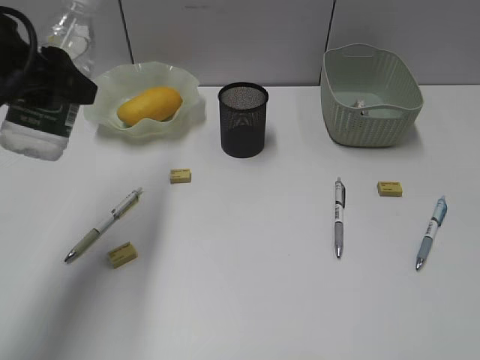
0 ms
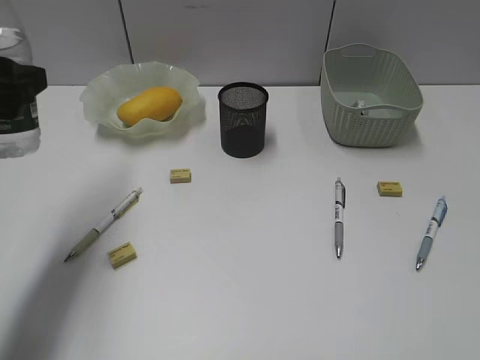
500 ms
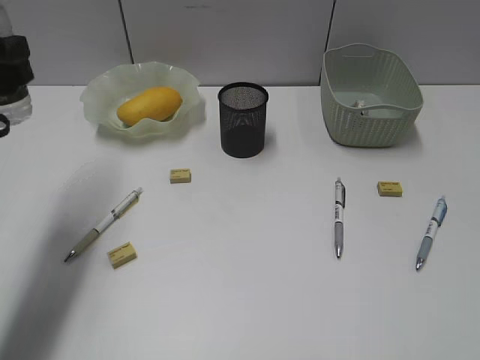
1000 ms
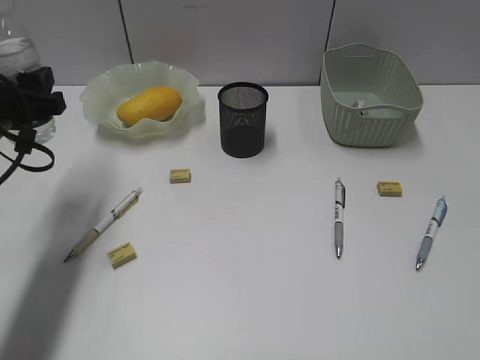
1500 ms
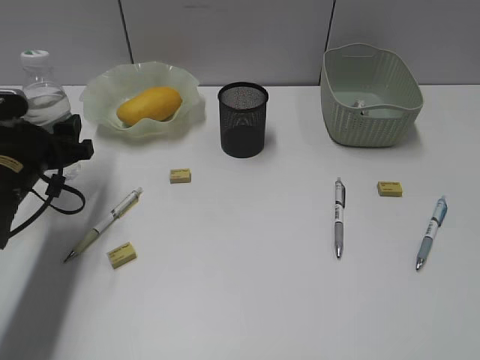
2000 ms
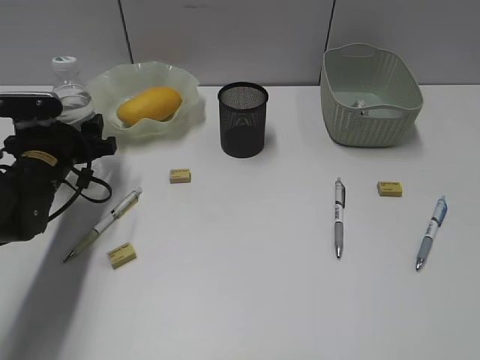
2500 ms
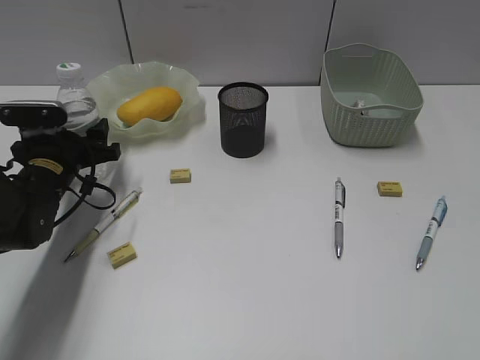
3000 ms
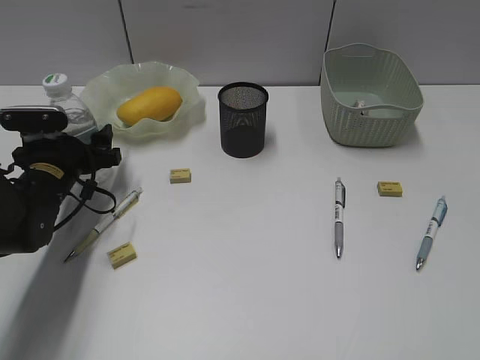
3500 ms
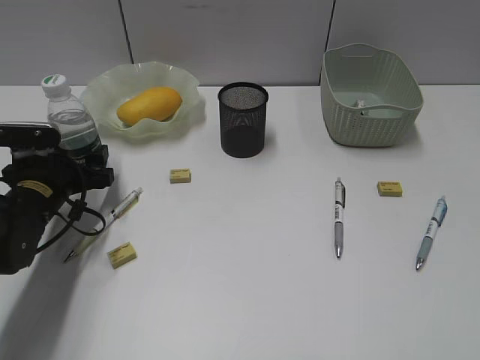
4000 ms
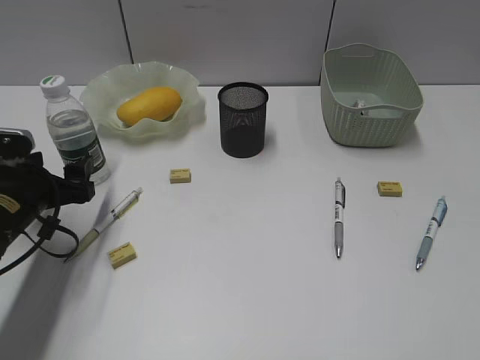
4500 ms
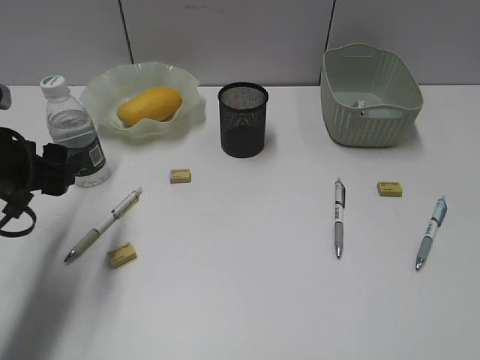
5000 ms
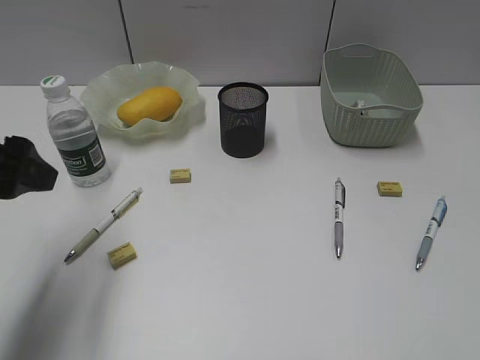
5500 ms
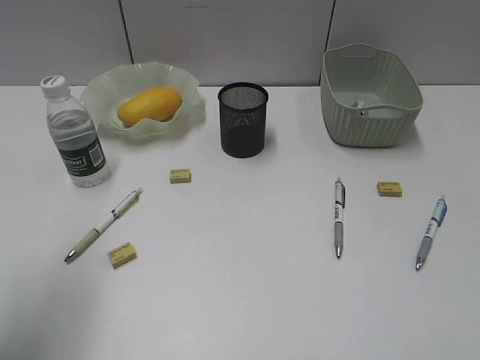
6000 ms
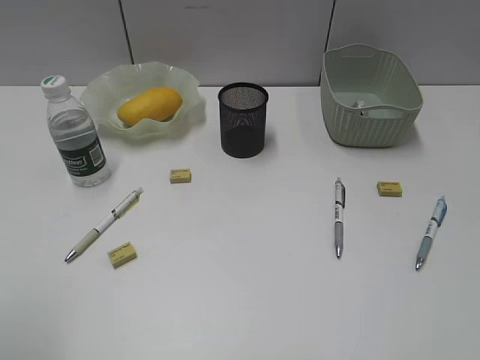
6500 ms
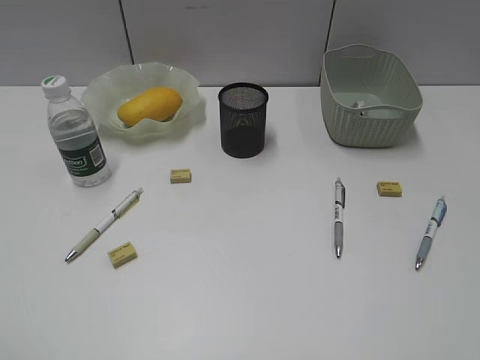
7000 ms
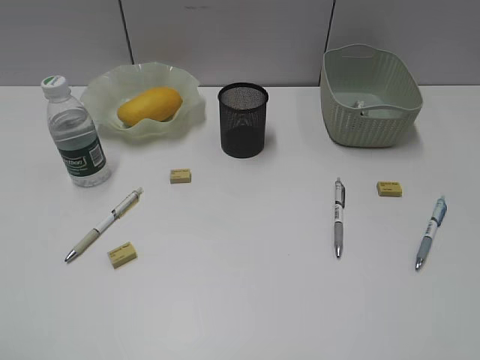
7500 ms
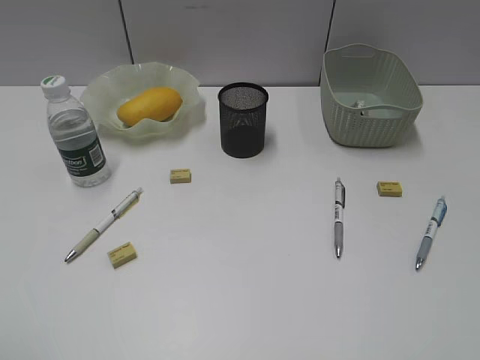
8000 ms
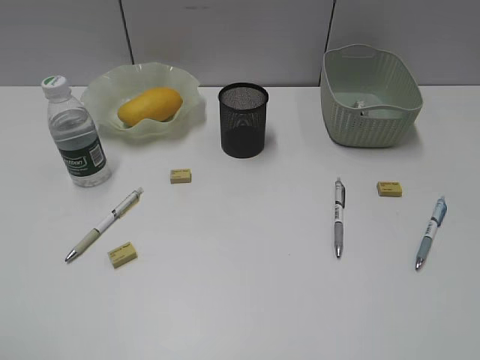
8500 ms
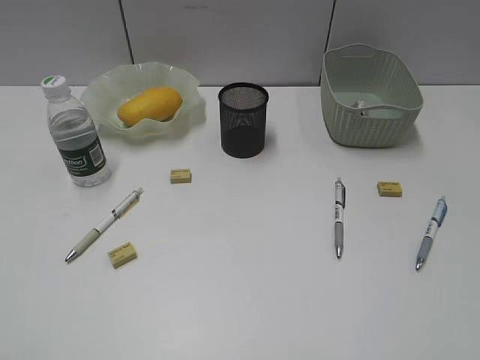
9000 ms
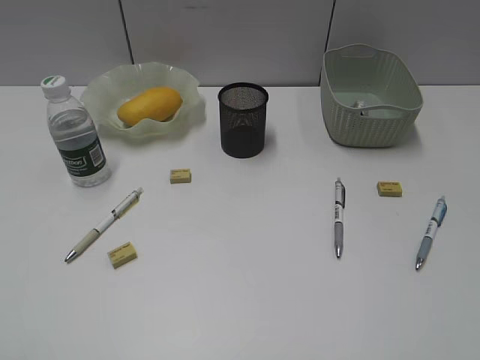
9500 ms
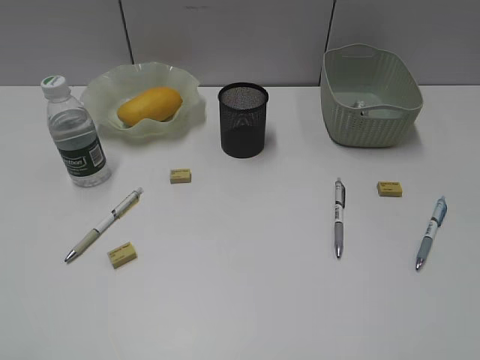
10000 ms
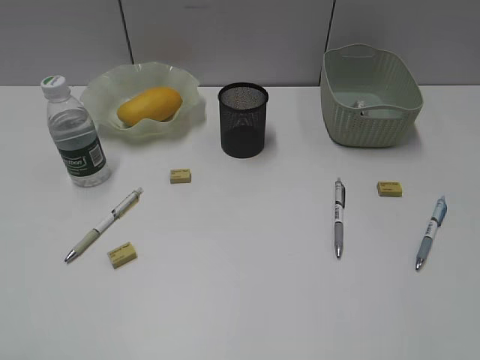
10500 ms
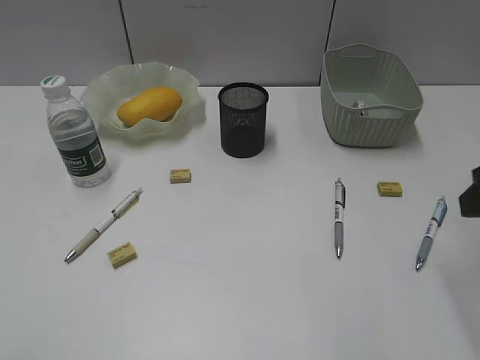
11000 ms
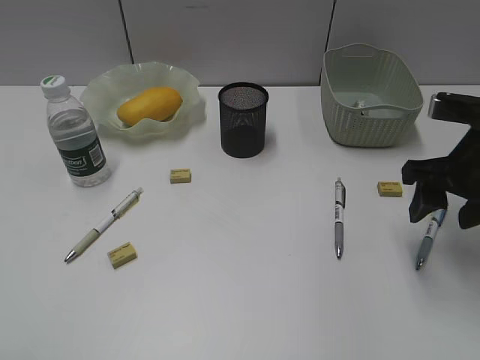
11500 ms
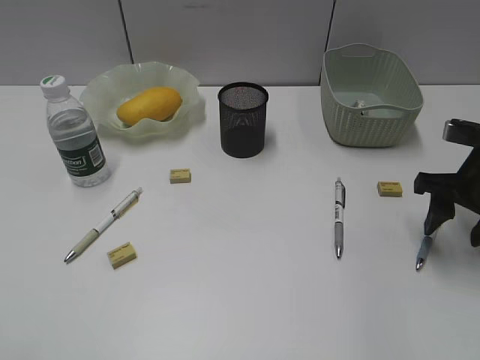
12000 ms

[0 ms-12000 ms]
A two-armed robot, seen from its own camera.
Step, 0 ms to 4000 ms: Stand the bottle with left gripper.
0 ms to 2000 ms: The left gripper goes about 20 cm downward.
2000 ms to 4000 ms: The left gripper travels downward by about 5 cm.
4000 ms to 6000 ms: The left gripper moves upward and backward, about 30 cm.
6000 ms to 8000 ms: The left gripper travels backward by approximately 15 cm.
10000 ms to 12000 ms: The right gripper moves forward and downward, about 30 cm.

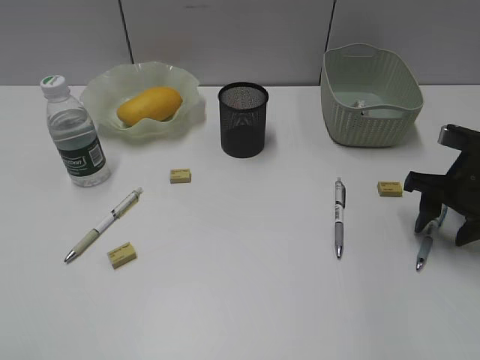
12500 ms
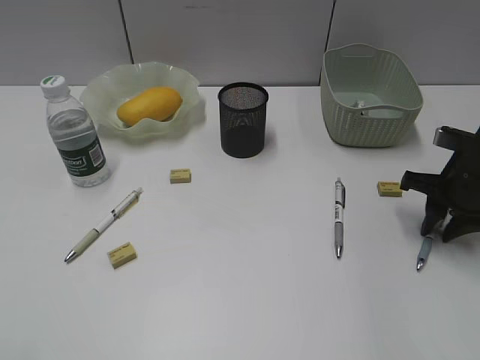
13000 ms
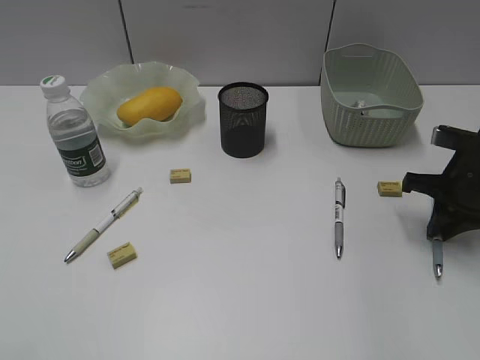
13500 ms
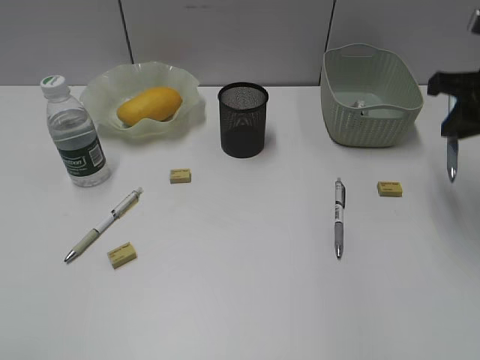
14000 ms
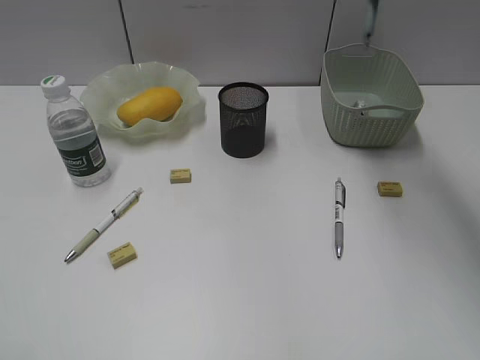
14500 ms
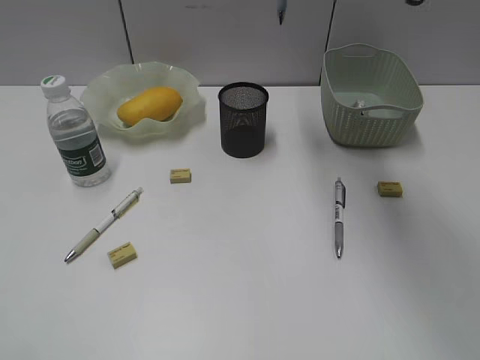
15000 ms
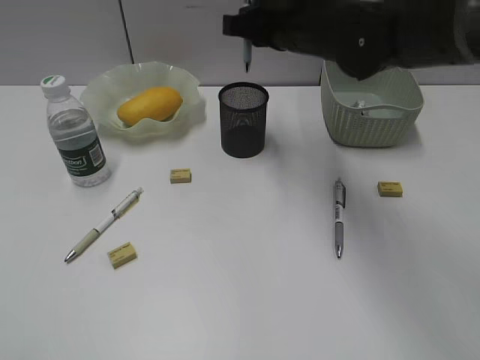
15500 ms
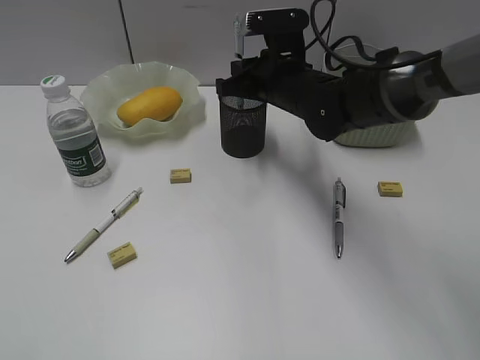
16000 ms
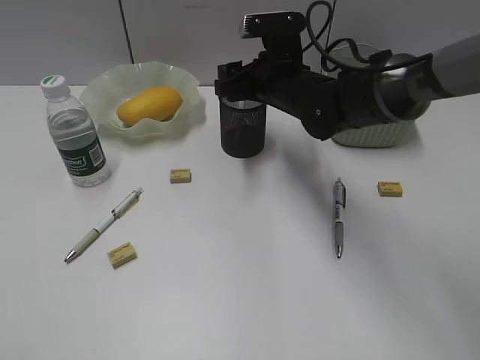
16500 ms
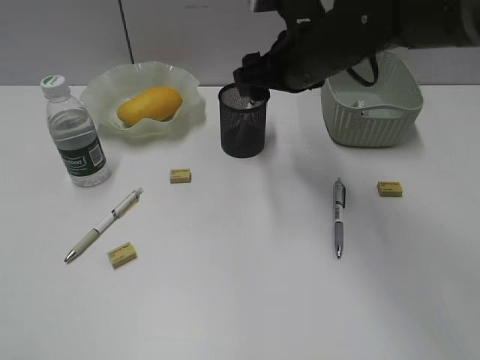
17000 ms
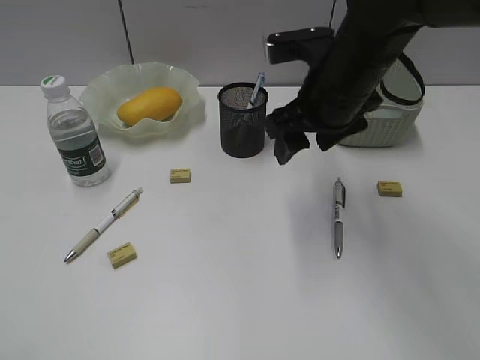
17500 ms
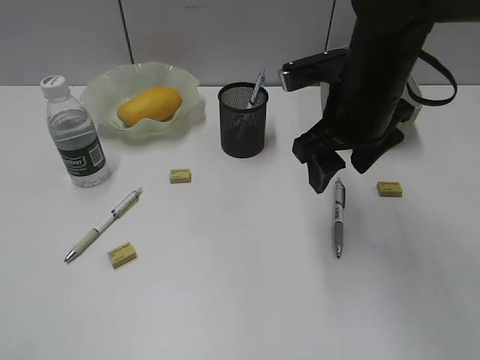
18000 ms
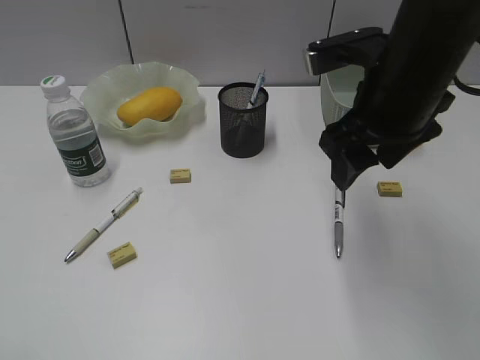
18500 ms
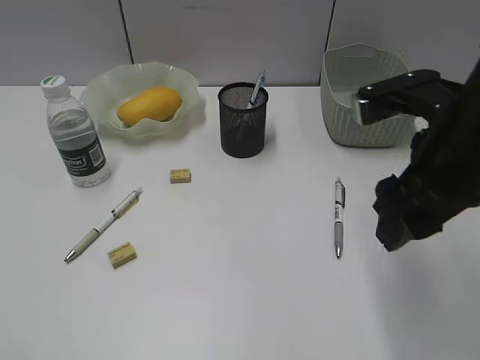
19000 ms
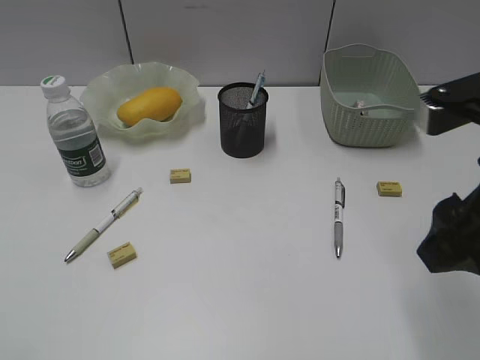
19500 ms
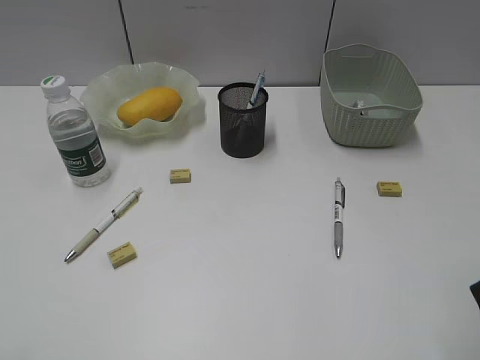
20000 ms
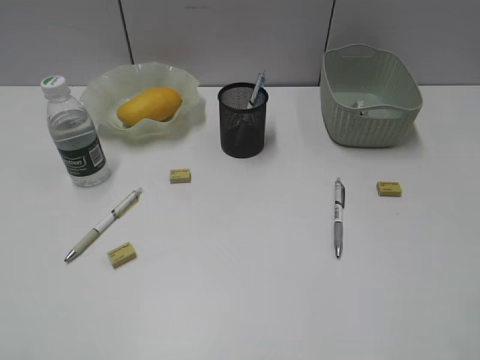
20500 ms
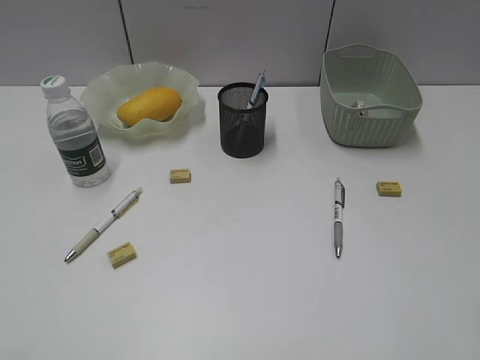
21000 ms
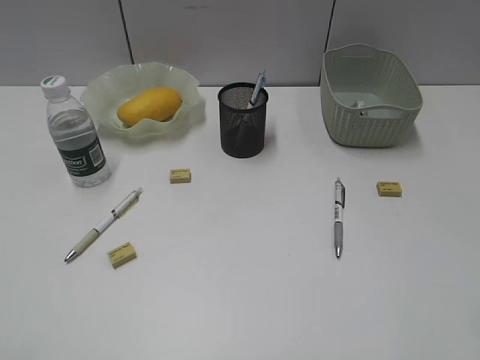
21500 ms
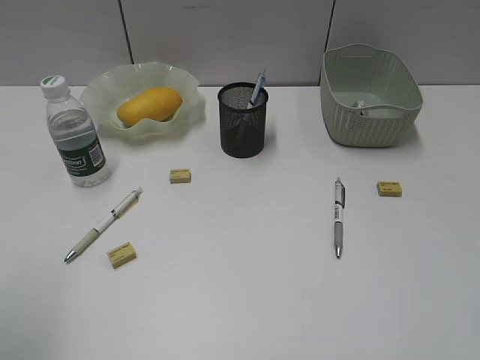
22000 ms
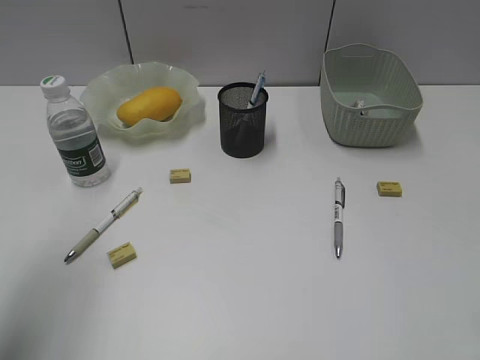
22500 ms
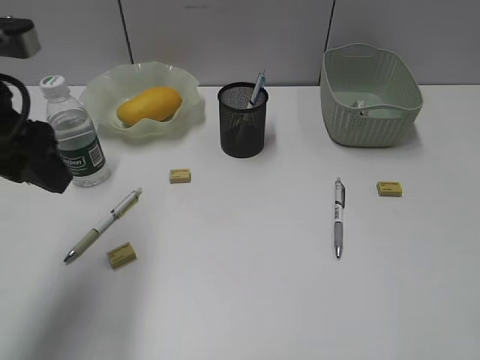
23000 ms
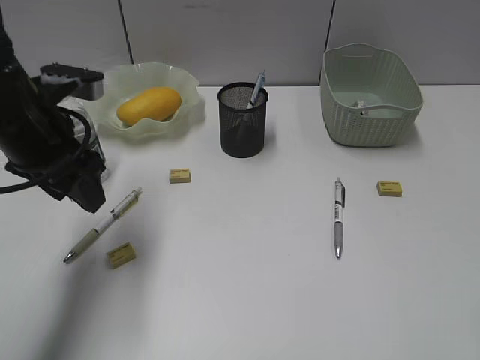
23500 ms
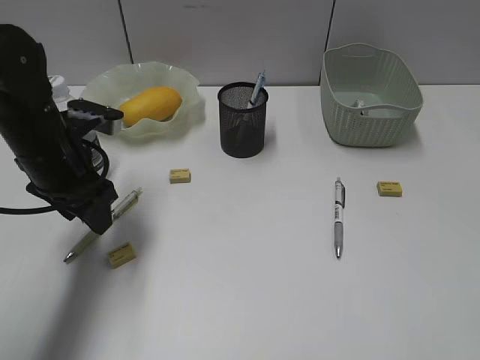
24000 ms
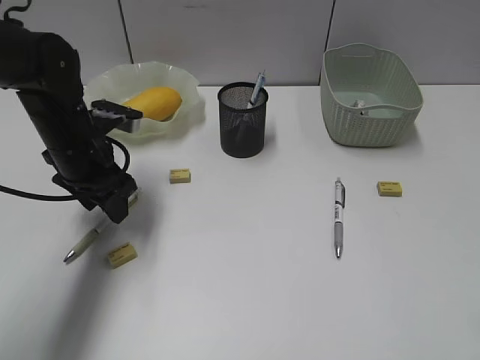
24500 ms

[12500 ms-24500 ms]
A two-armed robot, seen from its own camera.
Step, 13500 ms to 16500 ms: Place the blue pen in pen holder with right gripper.
12500 ms to 14500 ms: The right gripper goes roughly 25 cm upward and to the left, and closes its fingers.
14500 ms to 16500 ms: The right gripper shifts roughly 25 cm downward and to the left, and opens up.
16500 ms to 18500 ms: The right gripper shifts about 20 cm backward, upward and to the right.
18500 ms to 20500 ms: The right gripper heads backward and to the right, covering about 25 cm.
20500 ms to 22500 ms: The left gripper goes some 20 cm forward.
22500 ms to 24500 ms: The left gripper moves forward, downward and to the right, approximately 25 cm.

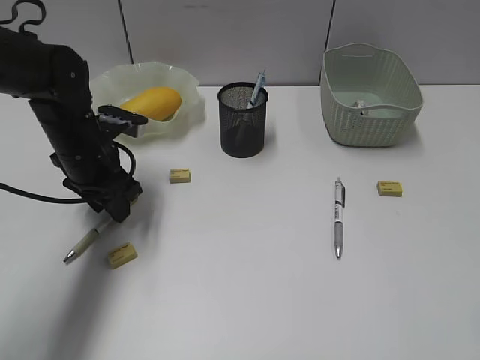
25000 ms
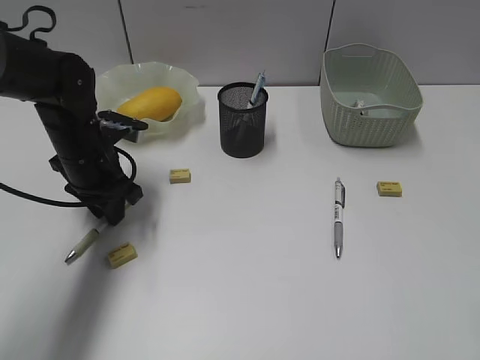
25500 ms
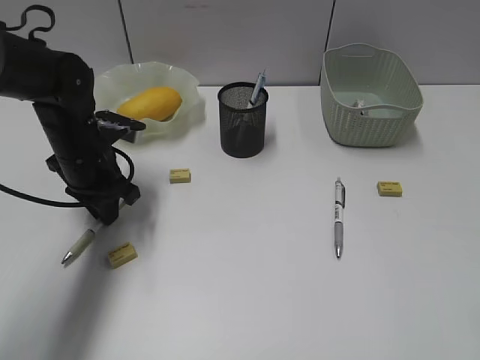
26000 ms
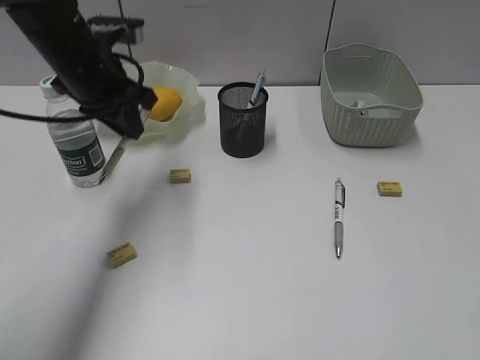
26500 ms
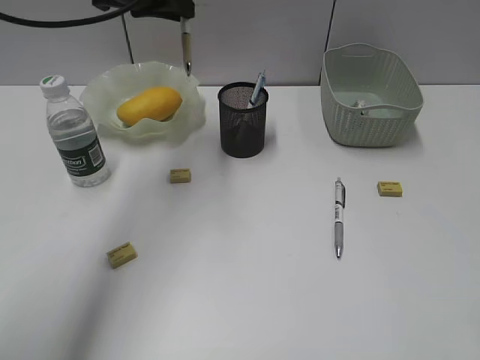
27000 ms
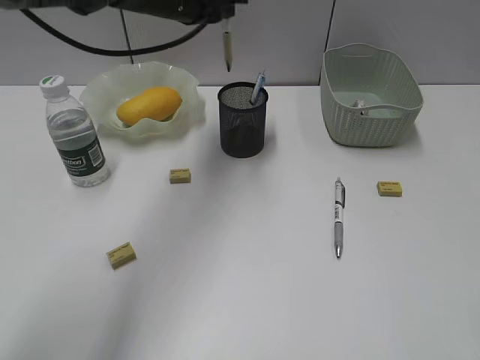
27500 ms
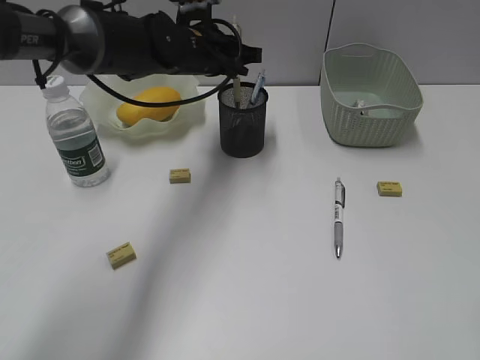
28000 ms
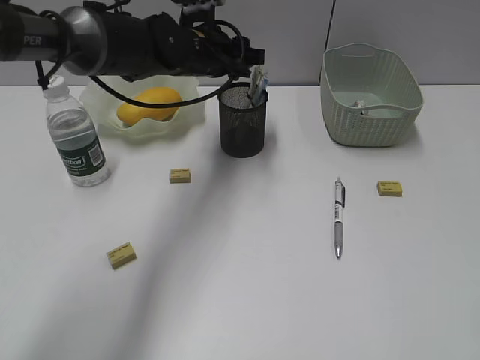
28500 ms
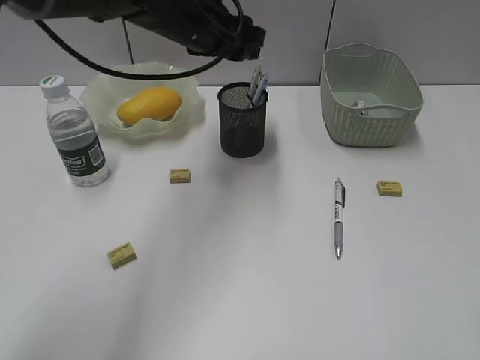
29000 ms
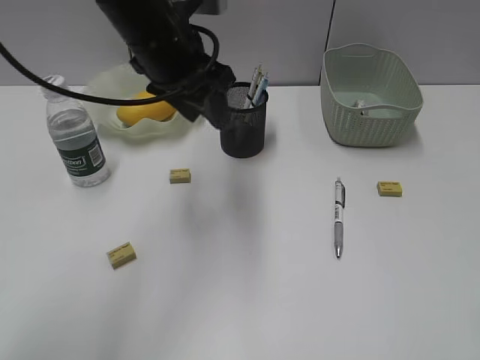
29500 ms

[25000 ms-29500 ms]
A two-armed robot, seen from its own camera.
Step, 26000 ms to 28500 ms: Place the yellow pen in pen holder with left gripper.
25000 ms to 27000 ms: The left gripper travels upward by about 20 cm, and closes its fingers.
27000 ms to 29500 ms: The left gripper travels backward by about 5 cm, and opens its fingers.
